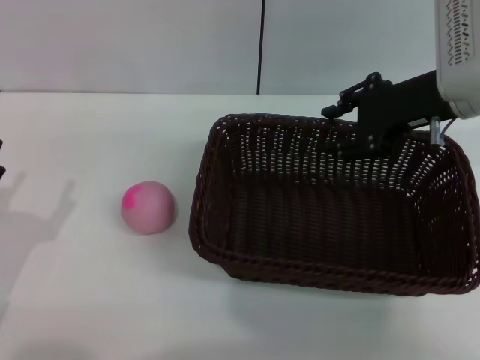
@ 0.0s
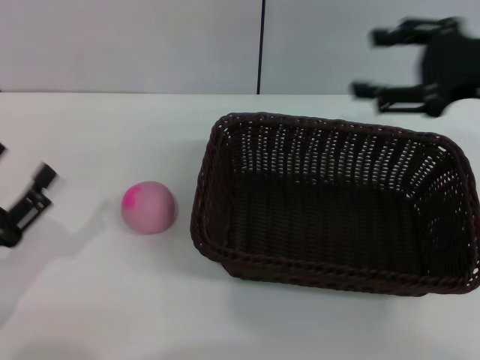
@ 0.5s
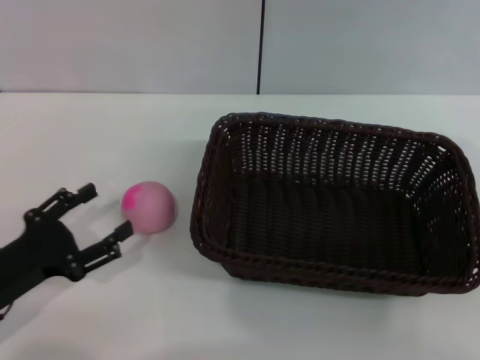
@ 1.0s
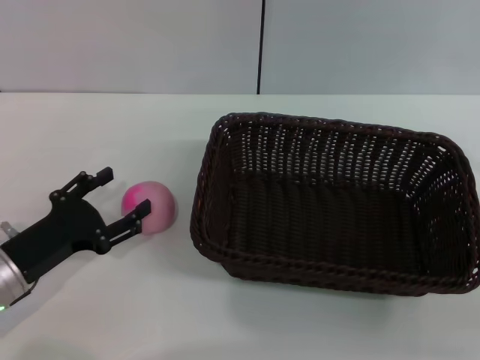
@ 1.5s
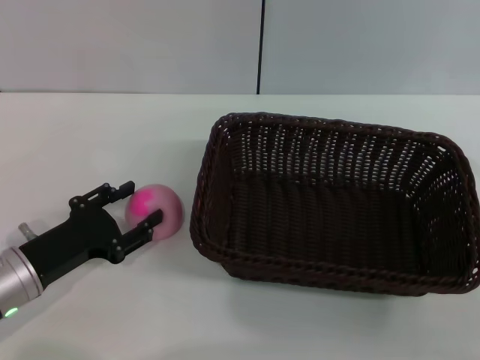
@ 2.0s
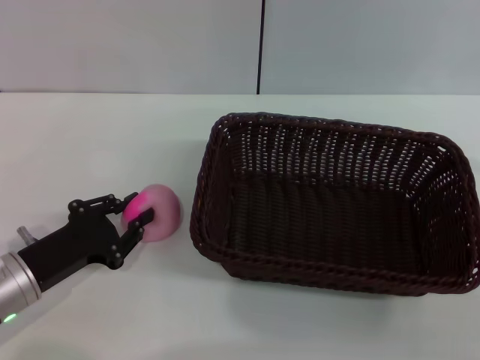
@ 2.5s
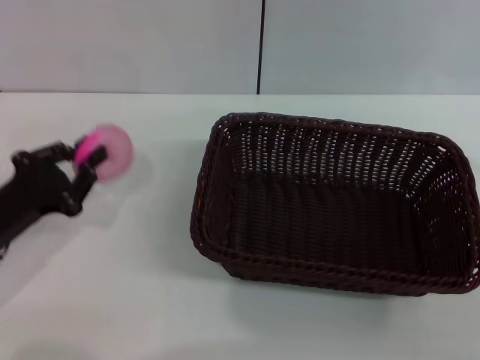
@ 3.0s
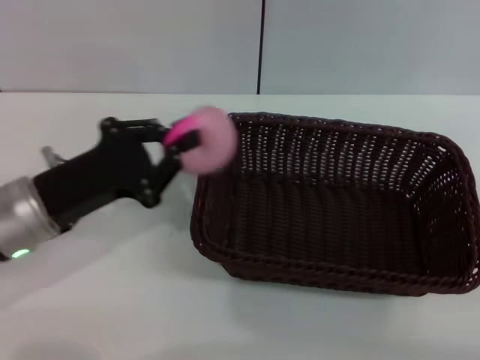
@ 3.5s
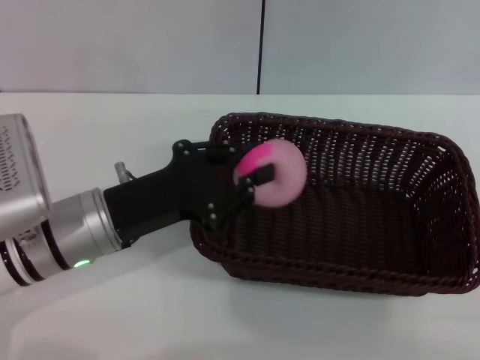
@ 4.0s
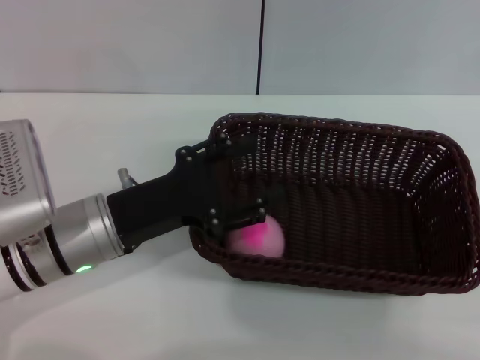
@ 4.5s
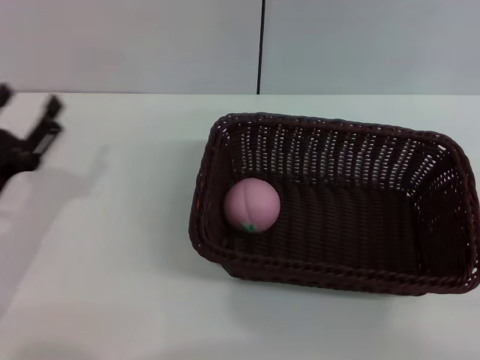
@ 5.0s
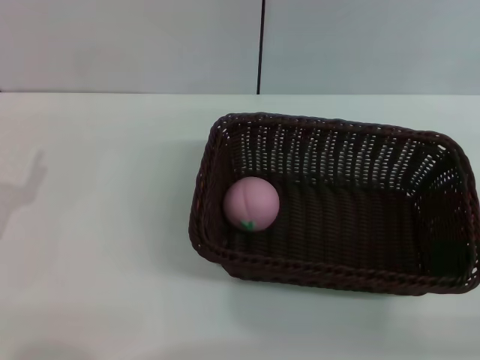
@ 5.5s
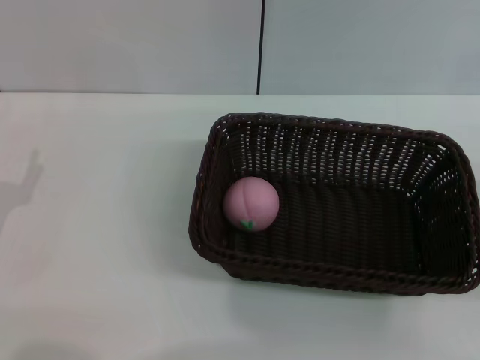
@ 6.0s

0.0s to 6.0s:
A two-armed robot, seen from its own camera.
Step, 0.5s to 3.0s: Pick up the peach with the left gripper.
Step, 3.5s to 4.5s: Place the peach into the basket with the left gripper.
0.0s to 2.0s: The left gripper is displaced forward by approximately 5 cm. Meanwhile the right gripper goes about 25 cm backward and to the right, and opens.
2.0s to 4.0s: The right gripper goes approximately 10 cm backward and to the right, while the left gripper goes roughly 10 cm to the right and upward, and closes.
4.0s to 6.0s: The right gripper moves forward, approximately 10 cm. Meanwhile the left gripper travels to the left by about 15 cm, and opens.
